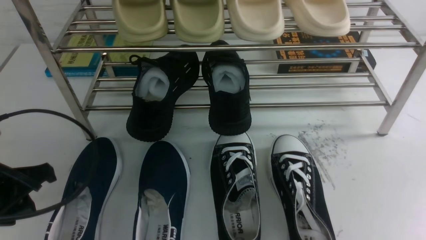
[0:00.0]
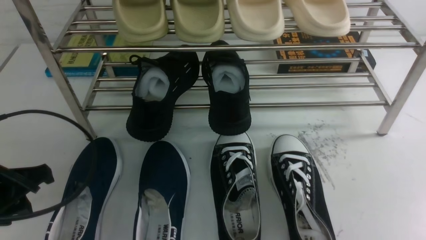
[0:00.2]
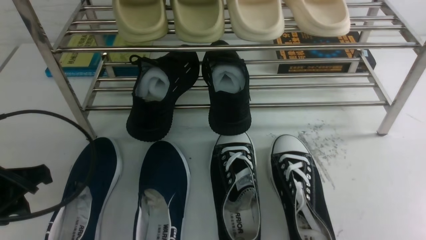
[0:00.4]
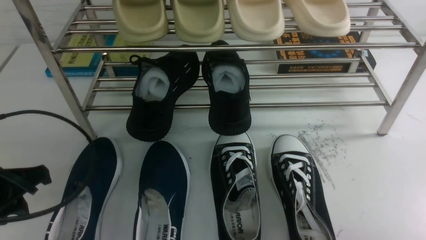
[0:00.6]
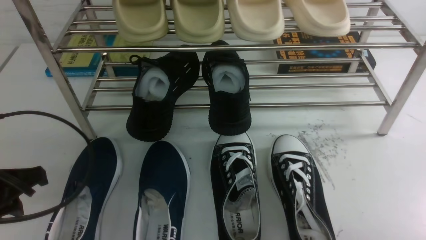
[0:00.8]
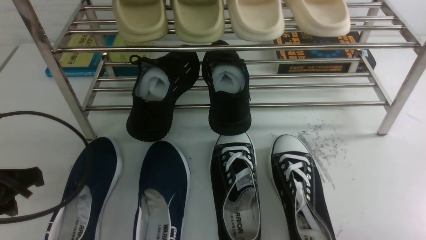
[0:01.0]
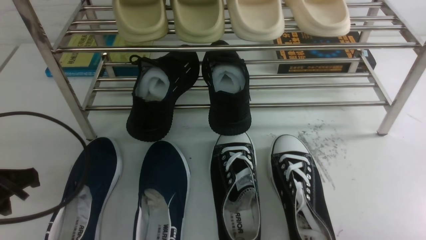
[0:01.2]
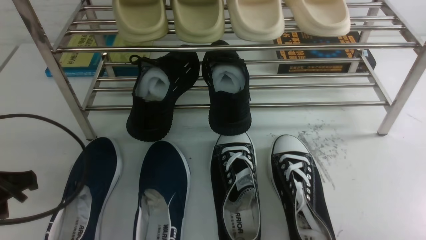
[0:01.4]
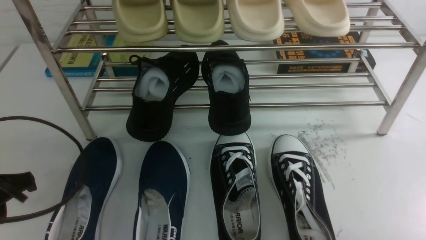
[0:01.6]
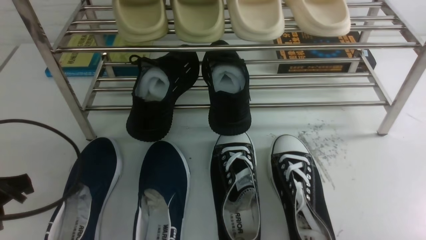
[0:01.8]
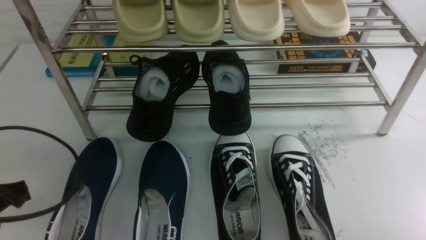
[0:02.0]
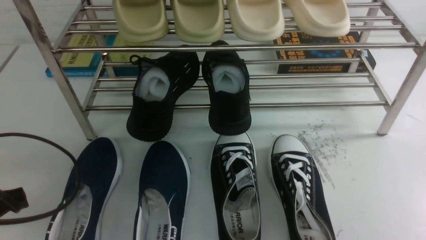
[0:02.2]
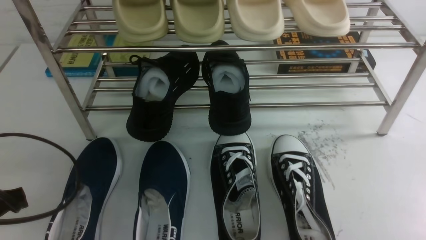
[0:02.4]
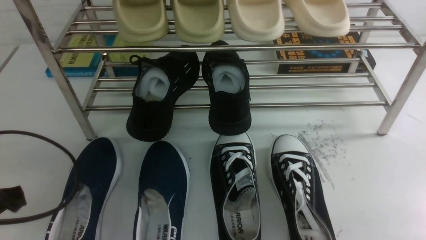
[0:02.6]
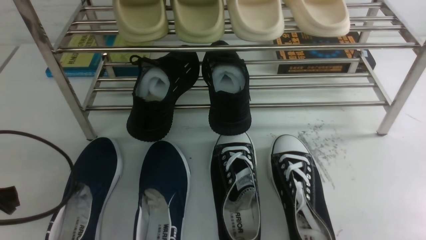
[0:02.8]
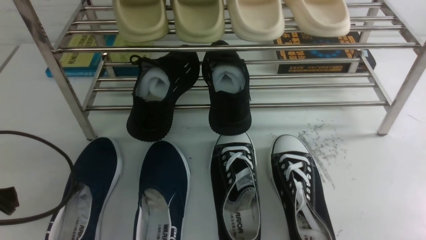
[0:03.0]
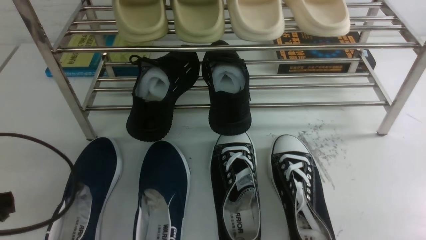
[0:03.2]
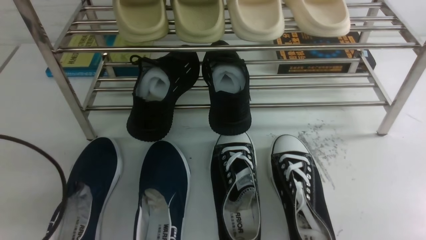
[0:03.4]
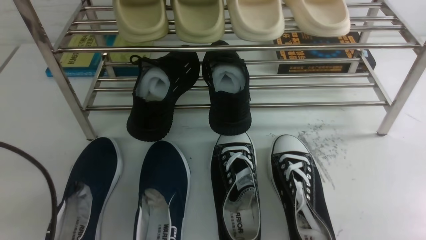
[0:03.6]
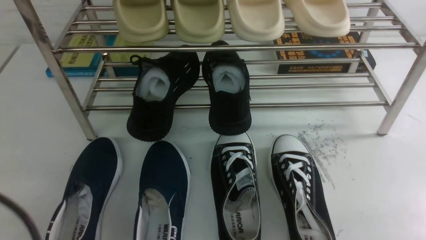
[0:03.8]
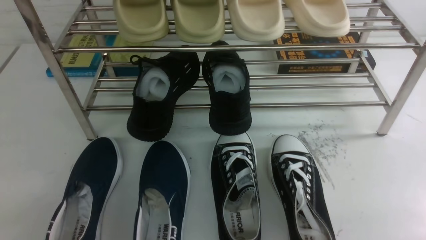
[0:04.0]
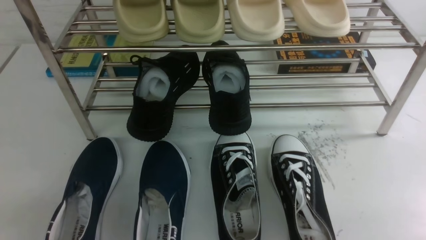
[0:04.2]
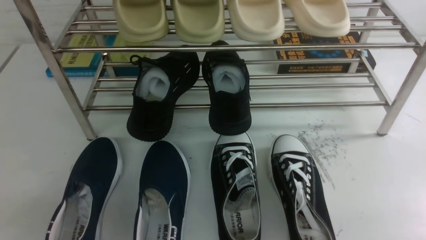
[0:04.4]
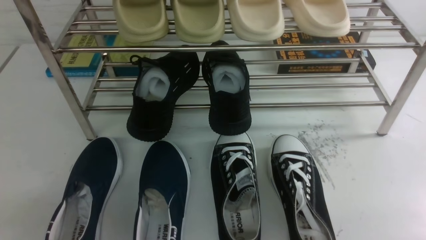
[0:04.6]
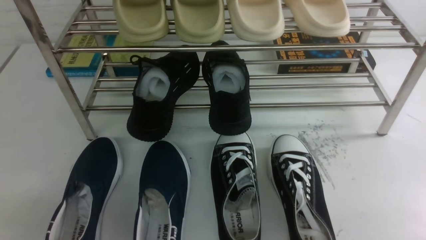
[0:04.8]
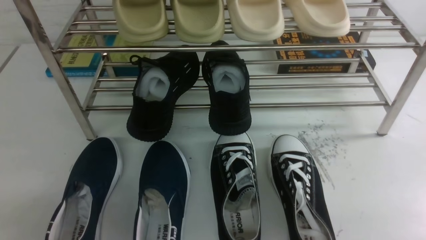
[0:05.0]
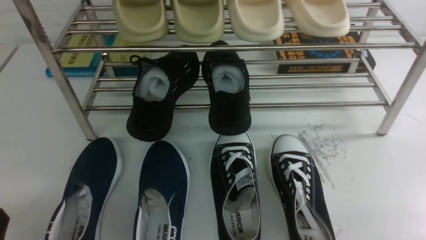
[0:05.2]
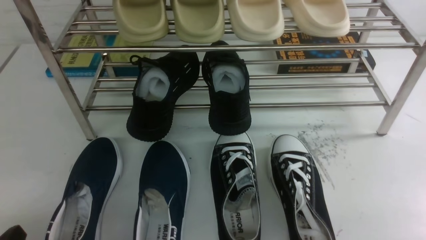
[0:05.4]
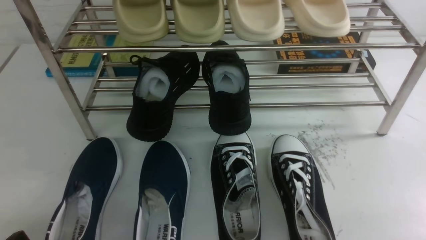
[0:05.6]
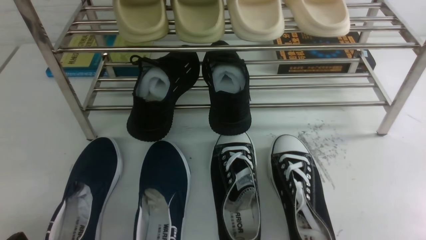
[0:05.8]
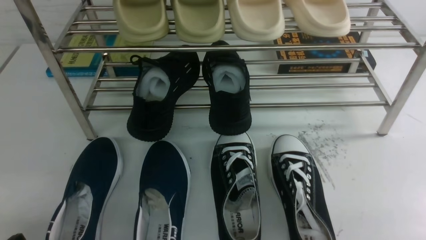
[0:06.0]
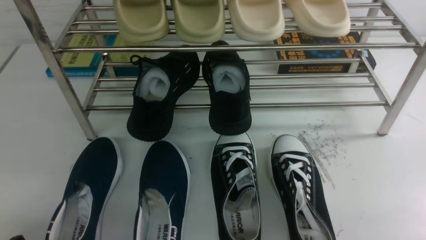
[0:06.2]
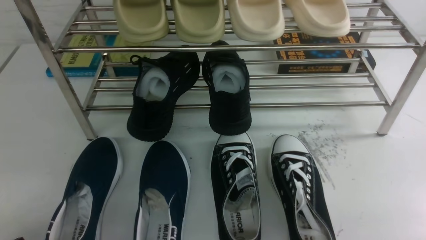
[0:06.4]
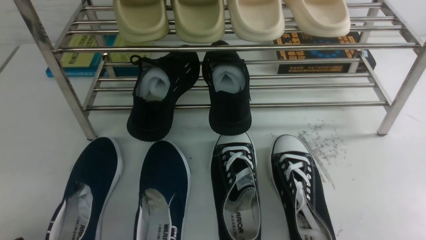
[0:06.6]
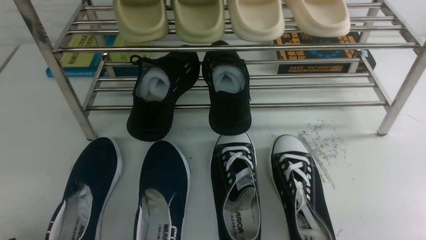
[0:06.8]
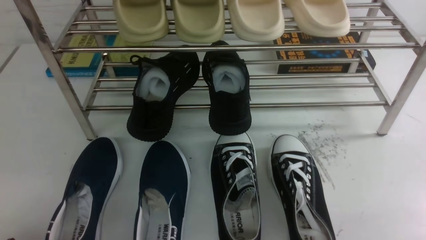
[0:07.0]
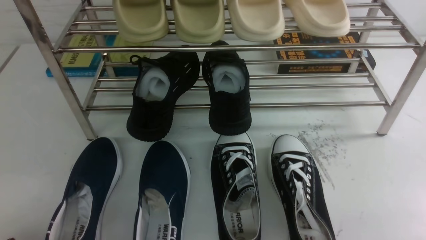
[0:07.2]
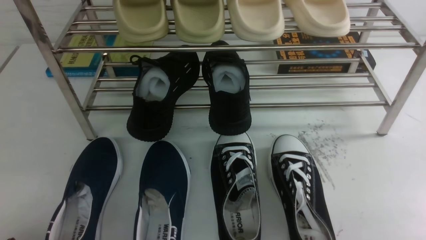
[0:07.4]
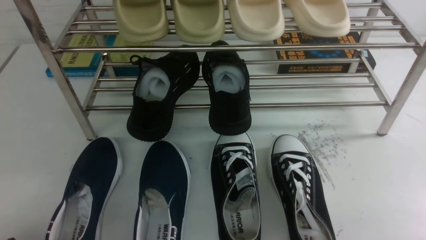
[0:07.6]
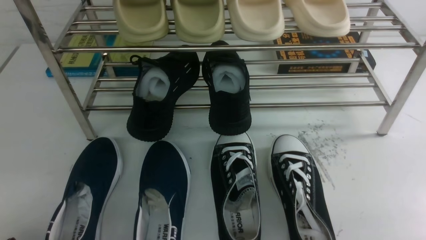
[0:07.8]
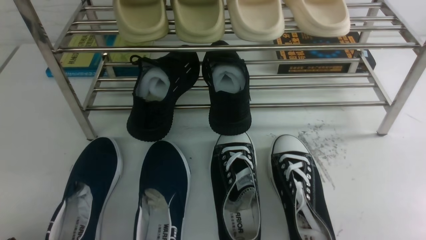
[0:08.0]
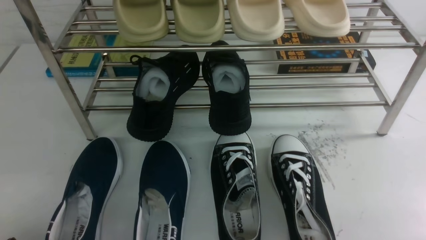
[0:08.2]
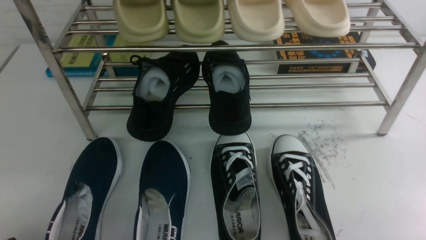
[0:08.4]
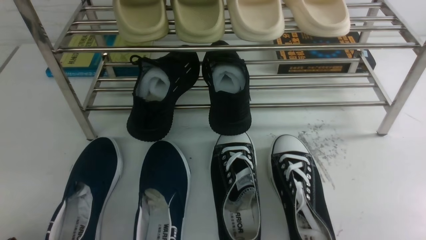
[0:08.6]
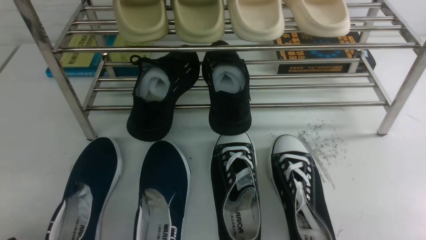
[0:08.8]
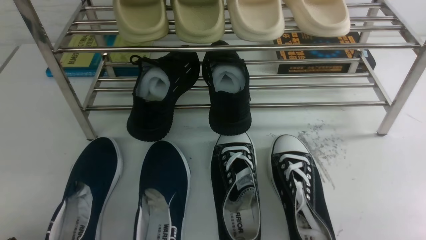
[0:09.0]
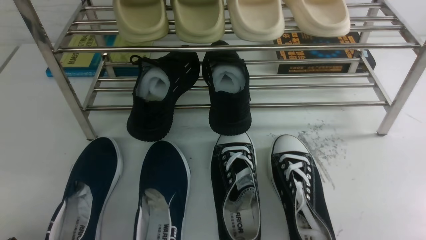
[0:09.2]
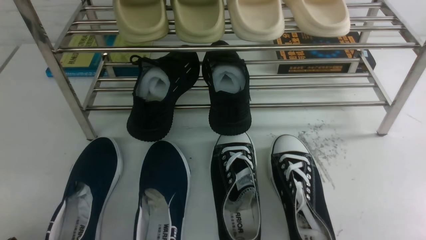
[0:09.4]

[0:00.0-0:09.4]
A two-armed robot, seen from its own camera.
0:03.2 to 0:04.8: The left gripper heads backward, covering about 15 cm, and closes up.
0:07.8 to 0:09.4: Neither gripper changes place.
